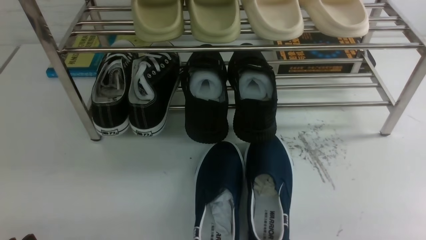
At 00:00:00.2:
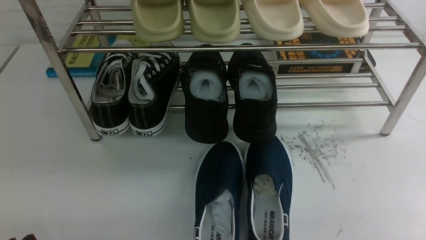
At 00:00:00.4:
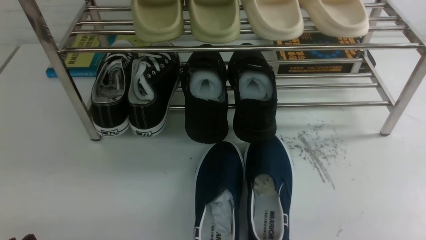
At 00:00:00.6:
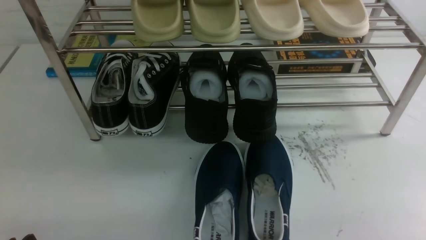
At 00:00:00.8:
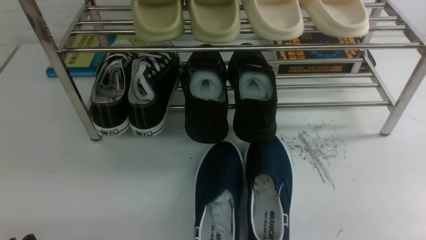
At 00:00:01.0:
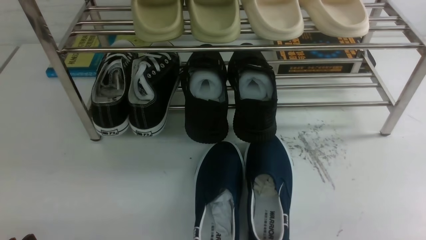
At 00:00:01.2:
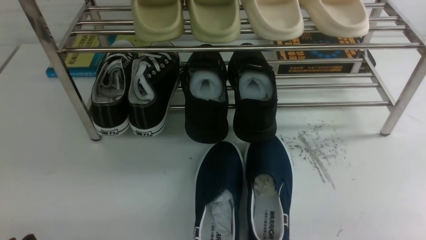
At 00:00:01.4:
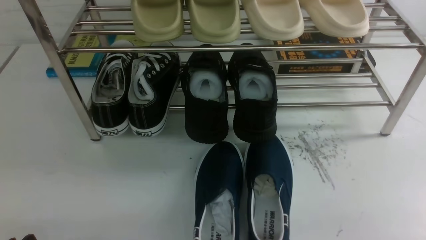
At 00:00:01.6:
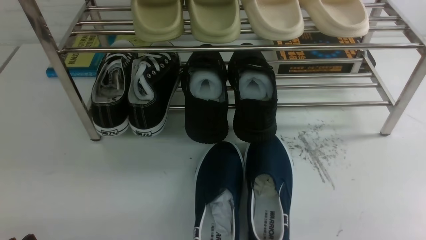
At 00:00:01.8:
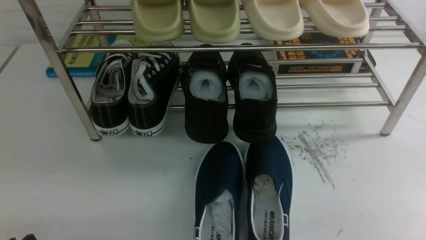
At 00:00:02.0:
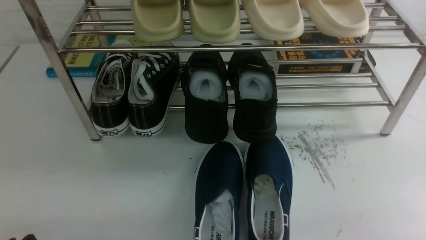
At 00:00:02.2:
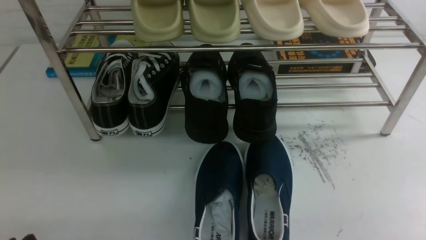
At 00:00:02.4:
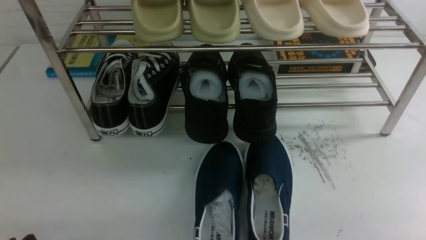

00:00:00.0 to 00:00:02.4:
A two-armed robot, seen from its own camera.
00:00:00.0 to 00:00:02.4: Both grippers stay about where they are.

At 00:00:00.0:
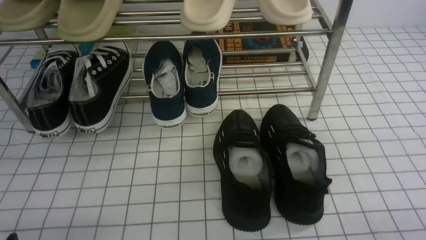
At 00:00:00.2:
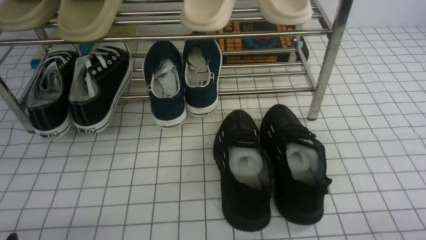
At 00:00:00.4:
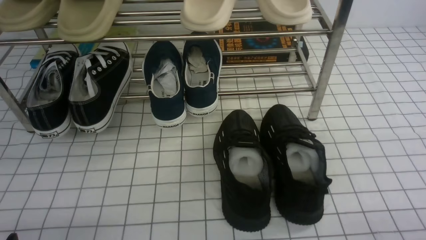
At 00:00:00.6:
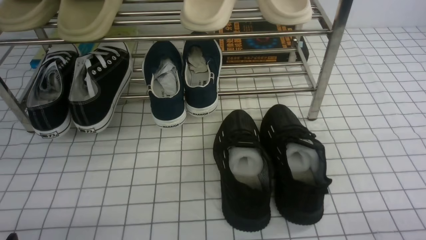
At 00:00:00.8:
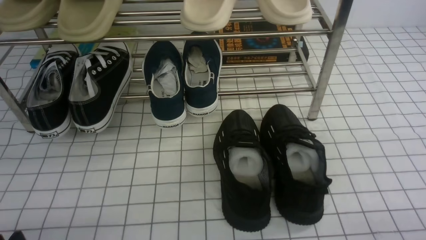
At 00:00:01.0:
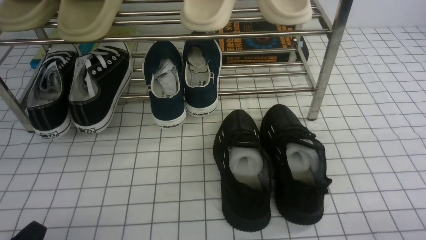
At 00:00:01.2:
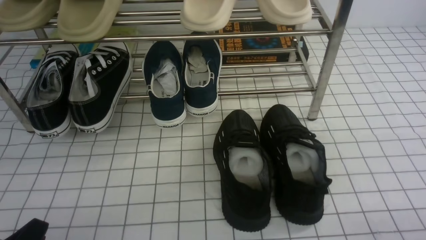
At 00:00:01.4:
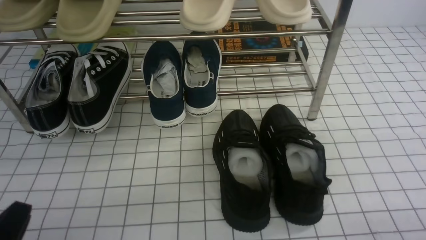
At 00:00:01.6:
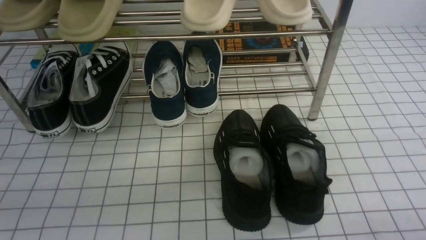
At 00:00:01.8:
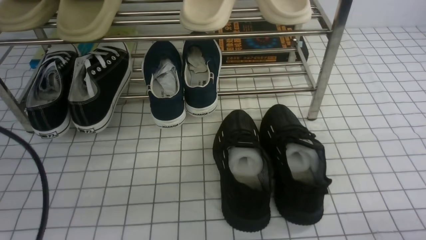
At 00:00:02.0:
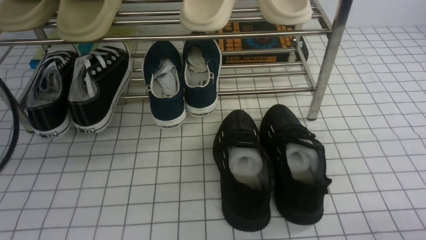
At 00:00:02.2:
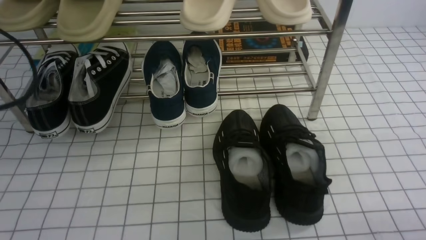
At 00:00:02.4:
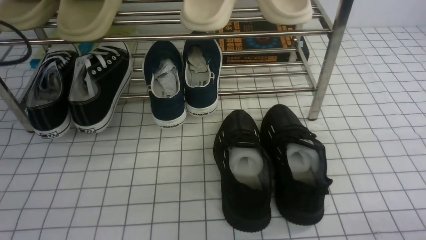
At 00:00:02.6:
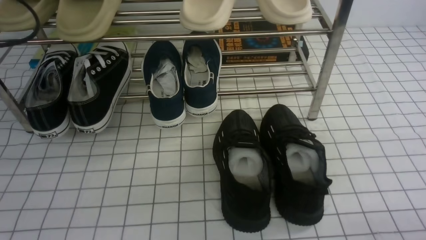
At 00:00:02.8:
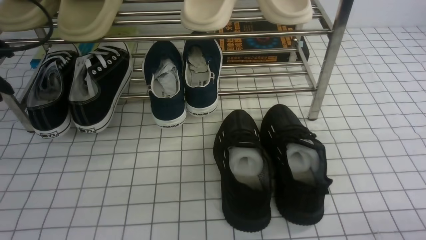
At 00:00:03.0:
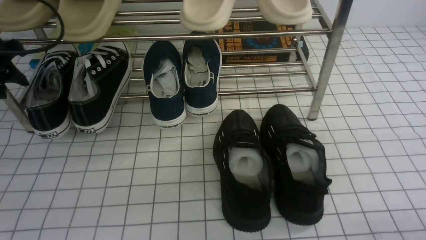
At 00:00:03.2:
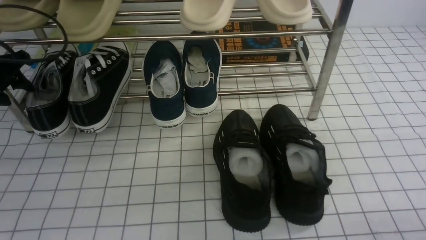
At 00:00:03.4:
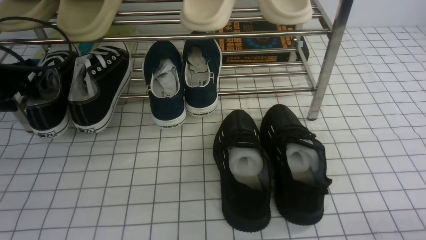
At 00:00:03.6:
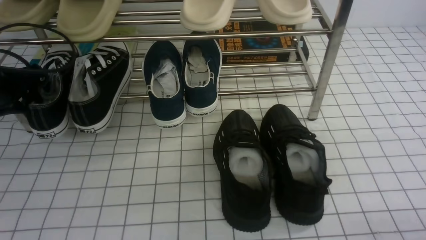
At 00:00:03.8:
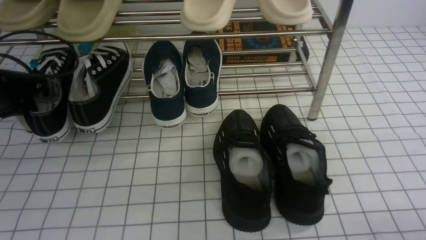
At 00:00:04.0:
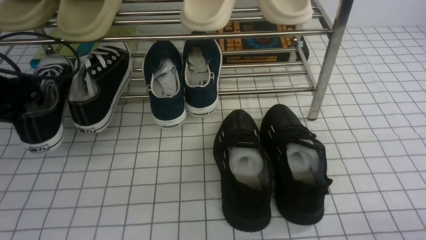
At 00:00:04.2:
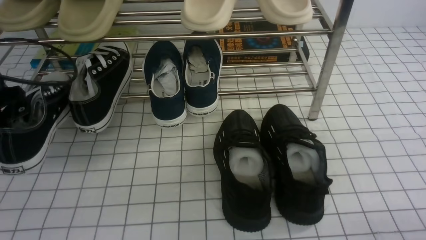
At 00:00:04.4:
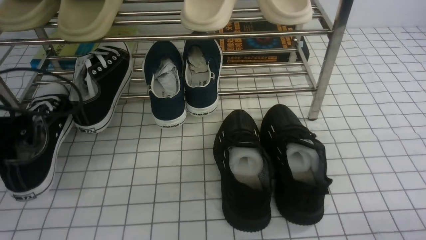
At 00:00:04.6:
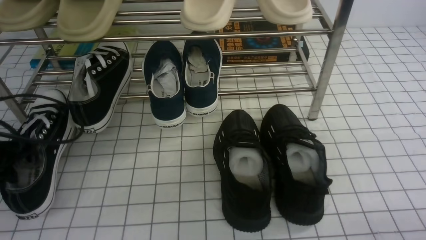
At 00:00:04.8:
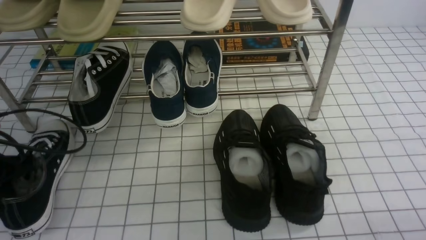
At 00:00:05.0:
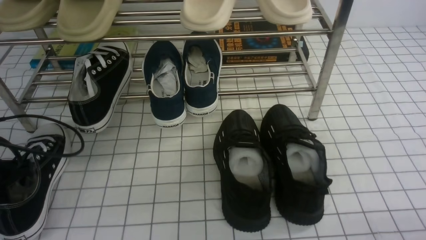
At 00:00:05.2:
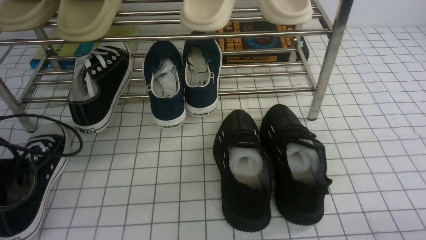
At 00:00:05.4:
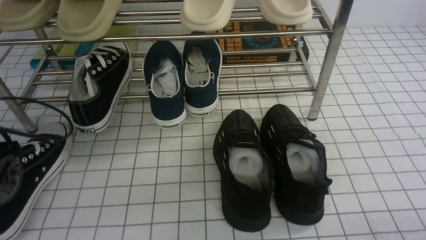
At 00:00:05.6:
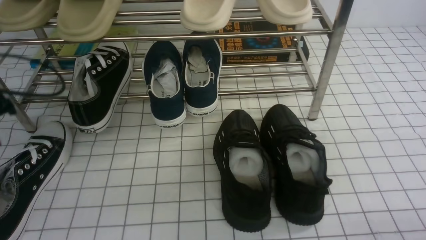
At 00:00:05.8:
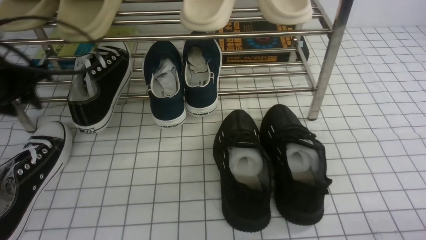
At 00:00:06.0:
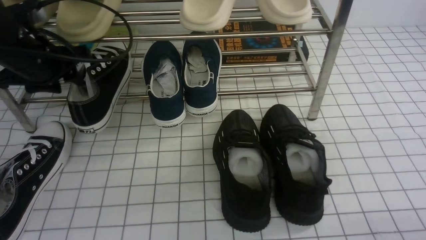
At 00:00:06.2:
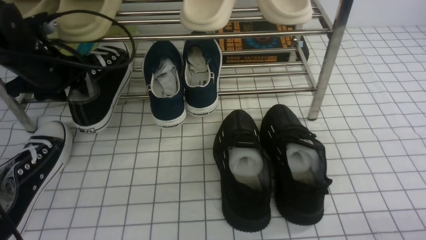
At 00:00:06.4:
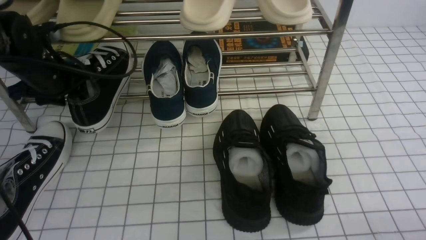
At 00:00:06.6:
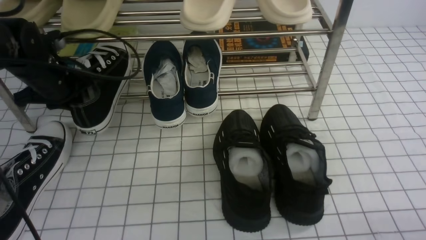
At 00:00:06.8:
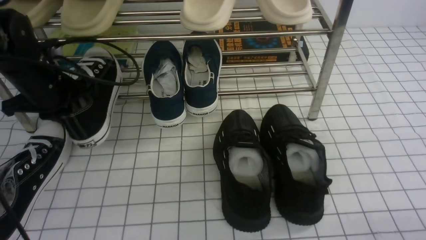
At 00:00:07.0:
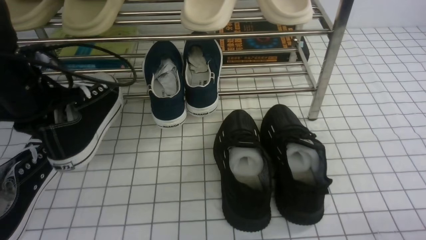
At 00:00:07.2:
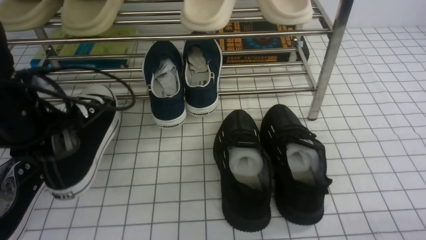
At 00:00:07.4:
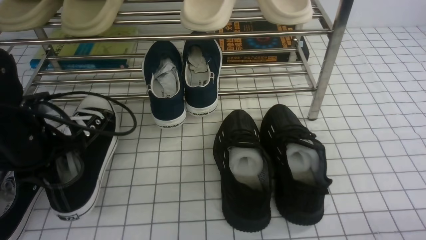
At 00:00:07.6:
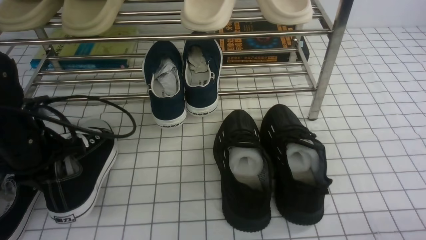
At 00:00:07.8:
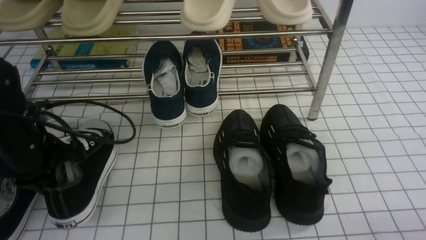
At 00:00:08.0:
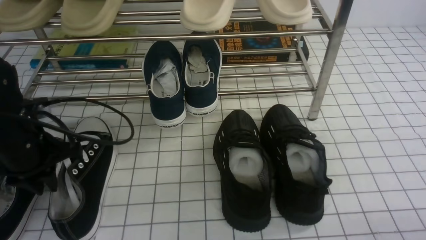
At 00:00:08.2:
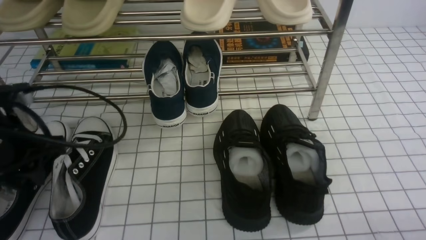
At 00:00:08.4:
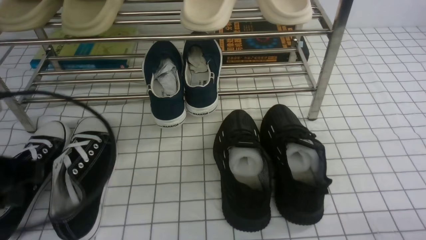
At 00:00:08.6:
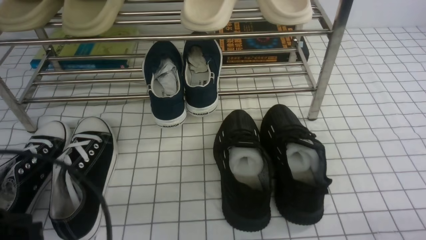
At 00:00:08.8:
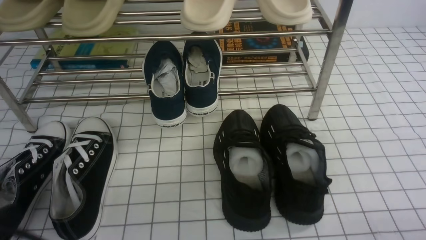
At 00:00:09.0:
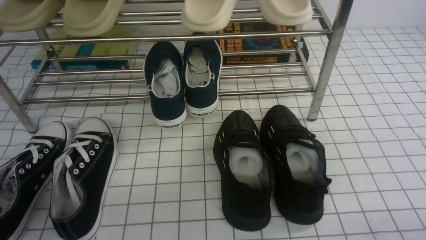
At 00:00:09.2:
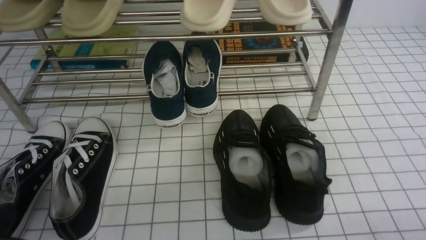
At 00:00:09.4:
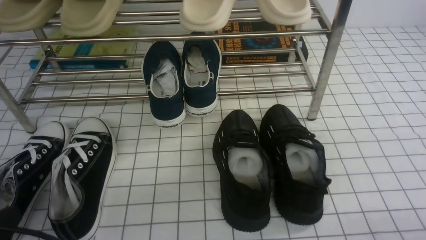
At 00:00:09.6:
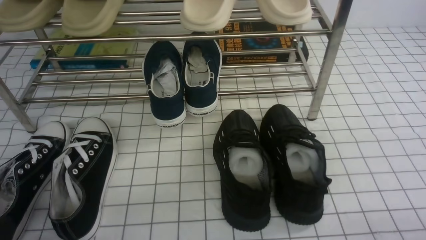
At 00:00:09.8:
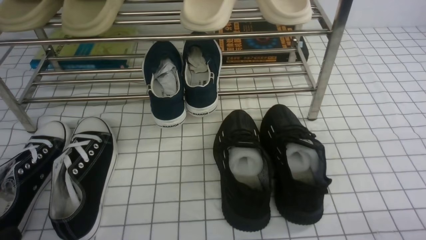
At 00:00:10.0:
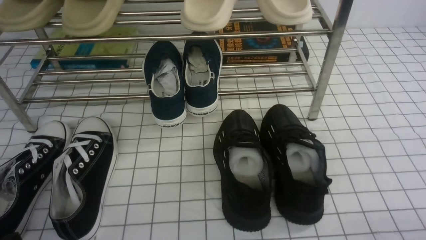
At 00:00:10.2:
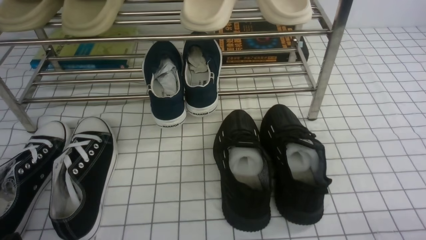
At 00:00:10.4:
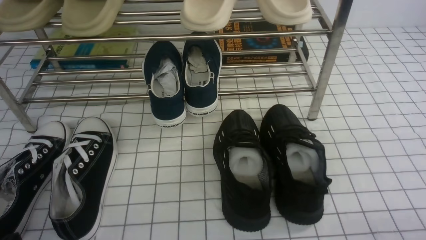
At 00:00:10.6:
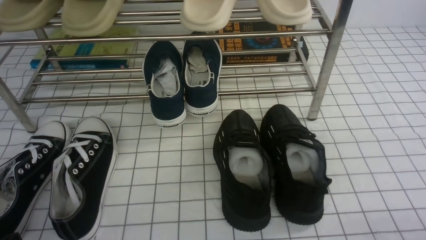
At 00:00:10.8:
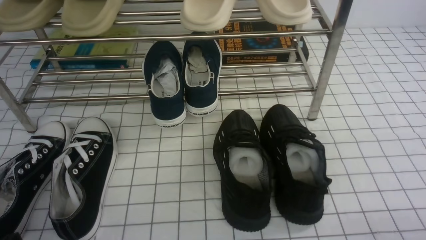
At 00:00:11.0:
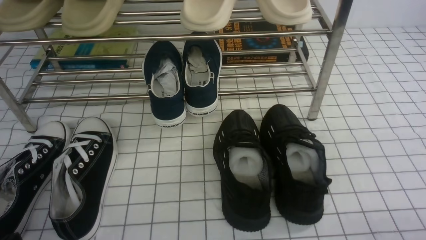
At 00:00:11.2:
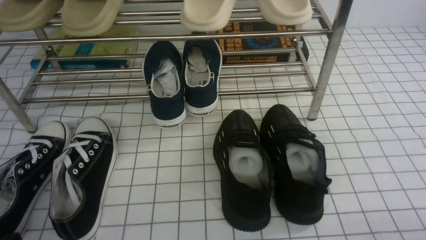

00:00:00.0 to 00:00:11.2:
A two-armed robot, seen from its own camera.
Step, 00:00:00.0 to 00:00:03.8: use the left arm to clamp a shoe on the left side of the shoe rack.
Step, 00:00:04.0 to 00:00:05.4: Use your left arm to remove the clamped shoe from the shoe rack and put it down.
Step, 00:00:05.6 to 00:00:06.6: use the left arm to clamp a shoe on the left side of the shoe rack.
Step, 00:00:06.8 to 00:00:08.2: Use your left arm to remove the clamped shoe from the shoe rack and put it down.
00:00:01.6 to 00:00:03.2: The left gripper travels forward by roughly 30 cm, and opens its fingers.
00:00:03.2 to 00:00:04.8: The left gripper heads backward and downward, covering some 10 cm, and closes up.
00:00:04.8 to 00:00:06.4: The left gripper shifts approximately 15 cm forward, to the right and upward, and opens.
00:00:06.4 to 00:00:08.0: The left gripper heads backward, covering about 10 cm, and closes, then opens again.
00:00:08.0 to 00:00:09.6: The left gripper heads backward, covering approximately 20 cm, and closes its fingers.
